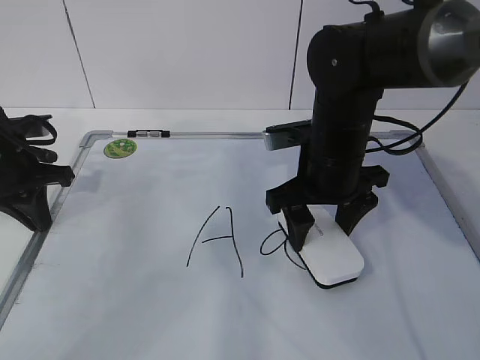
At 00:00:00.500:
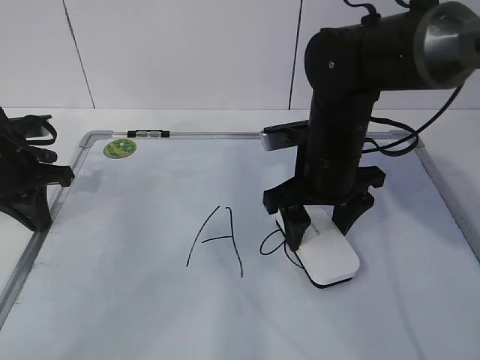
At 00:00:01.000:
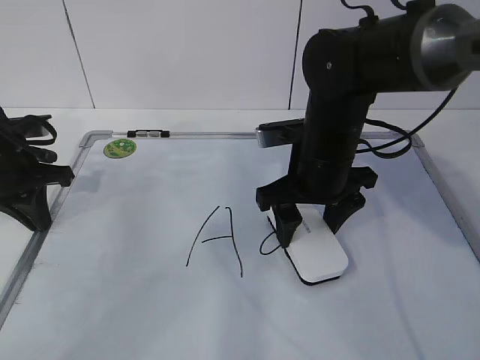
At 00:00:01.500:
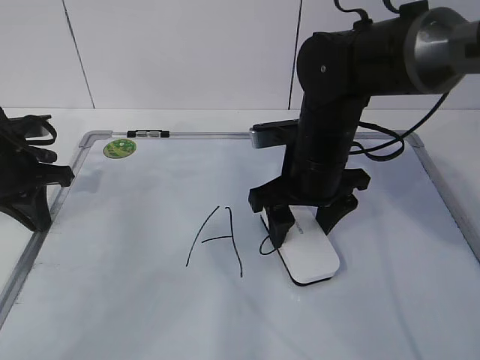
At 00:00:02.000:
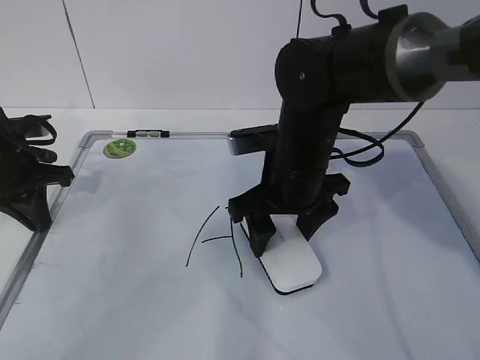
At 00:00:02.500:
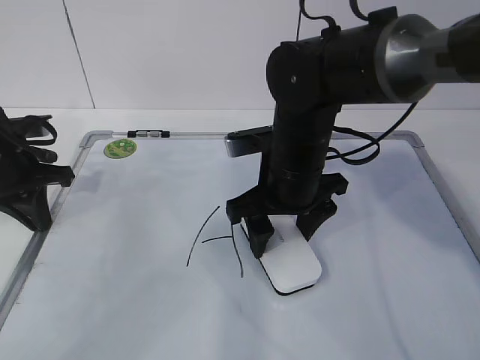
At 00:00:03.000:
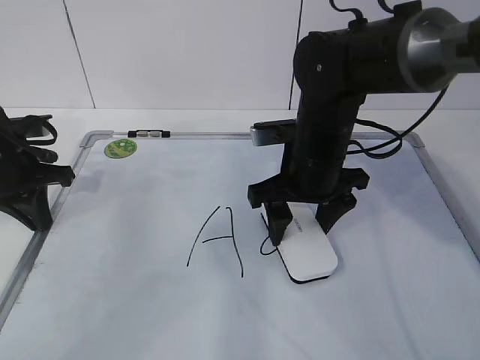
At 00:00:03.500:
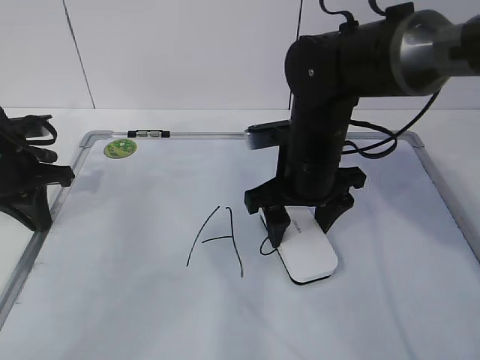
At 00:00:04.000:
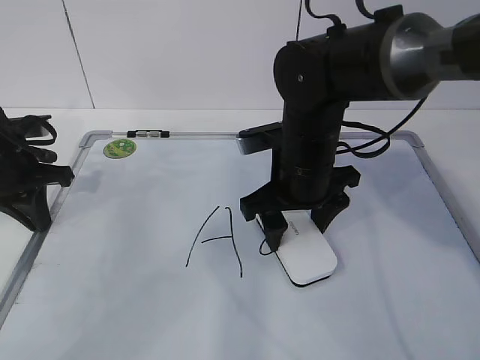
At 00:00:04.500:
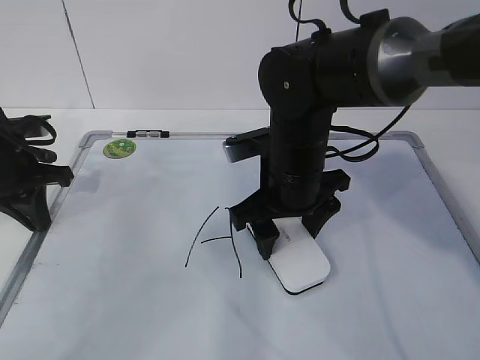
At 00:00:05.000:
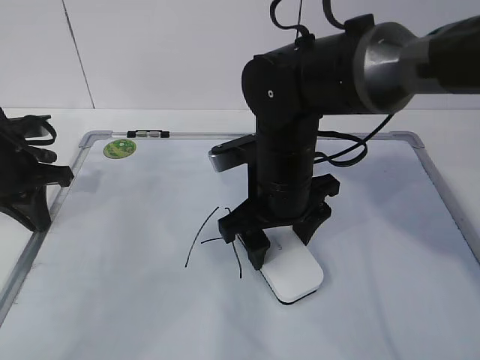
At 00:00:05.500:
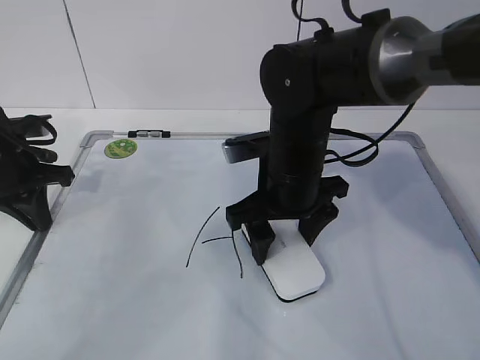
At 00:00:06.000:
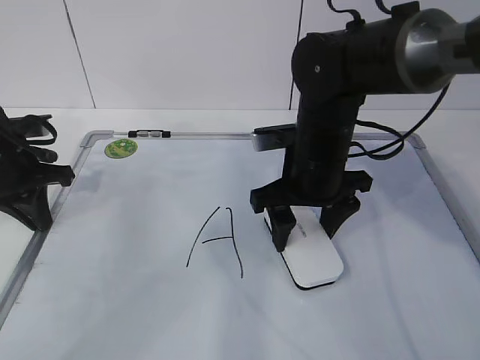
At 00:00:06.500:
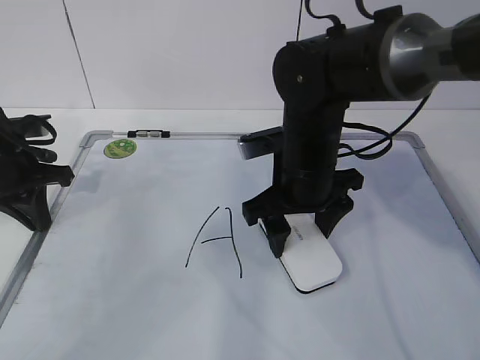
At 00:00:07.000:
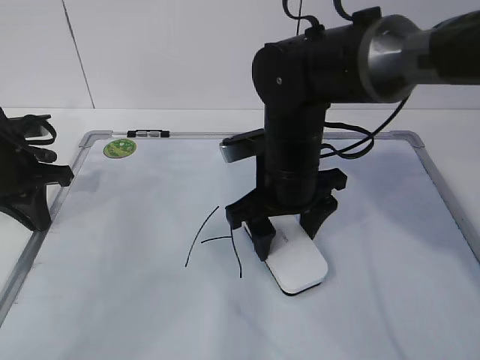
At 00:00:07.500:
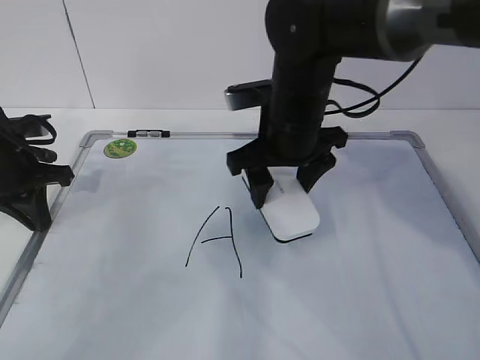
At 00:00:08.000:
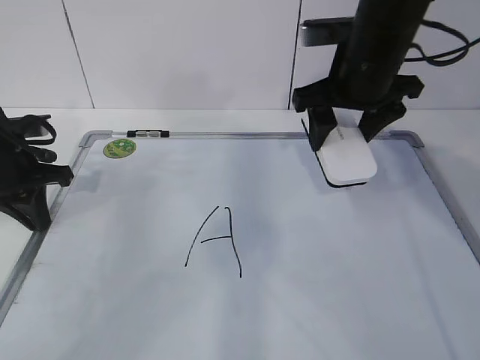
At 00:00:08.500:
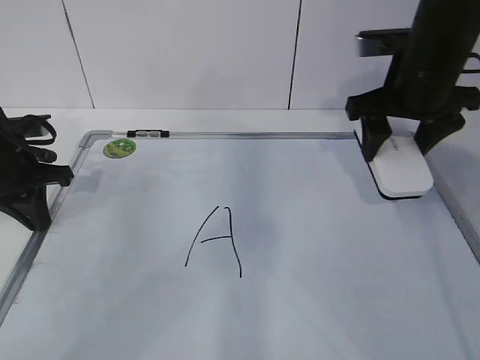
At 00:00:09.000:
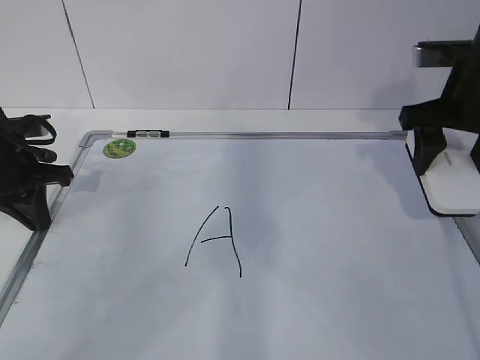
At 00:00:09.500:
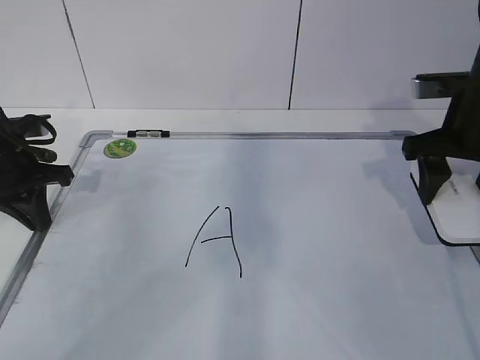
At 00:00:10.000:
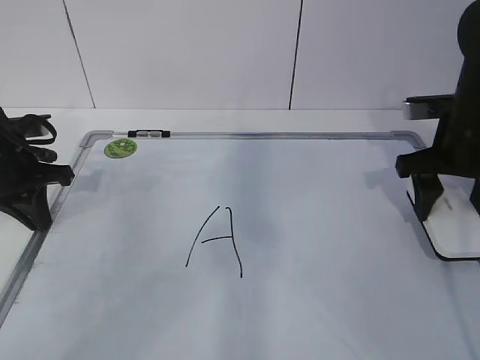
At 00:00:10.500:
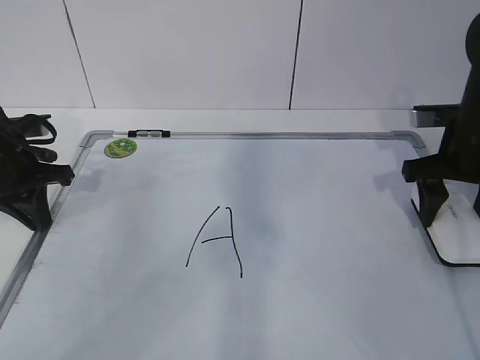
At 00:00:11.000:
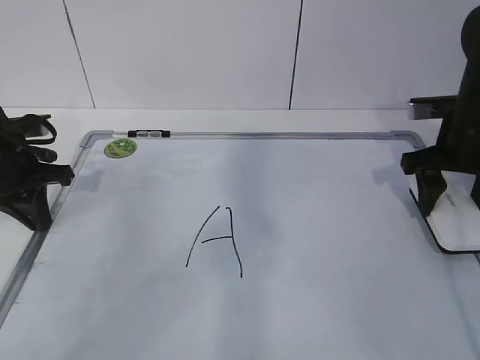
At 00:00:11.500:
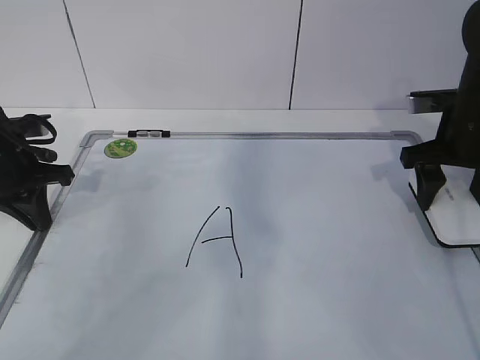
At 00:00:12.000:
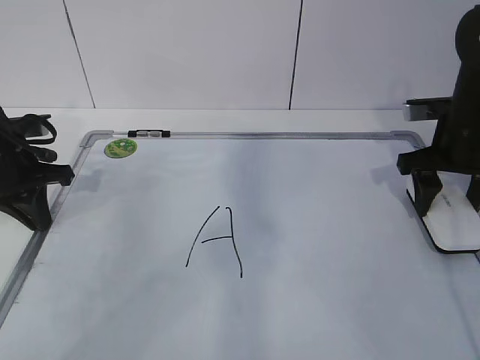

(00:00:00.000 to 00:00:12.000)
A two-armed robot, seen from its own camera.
Task of the whole recording: pick up the eraser on the blackboard and erase the letter "a".
Step, 00:00:02.000 - 00:00:08.000: Put down the eraser with your right hand.
00:00:00.000 - 00:00:04.000: The grippers move only a little.
00:00:04.000 - 00:00:06.000: The grippers move only a little.
00:00:06.000 - 00:00:08.000: The right gripper goes roughly 10 cm upward.
00:00:08.000 - 00:00:10.000: The right gripper travels to the right and downward by about 15 cm.
00:00:10.000 - 00:00:12.000: There are only small adjustments of the grippers.

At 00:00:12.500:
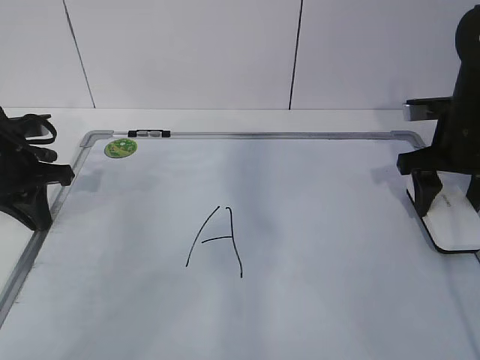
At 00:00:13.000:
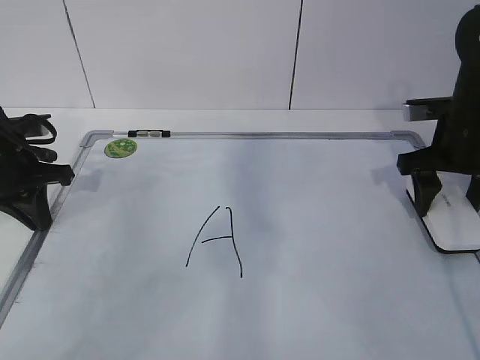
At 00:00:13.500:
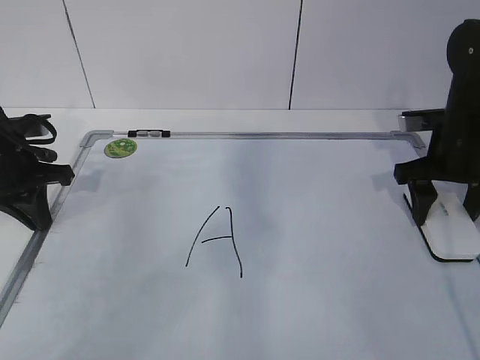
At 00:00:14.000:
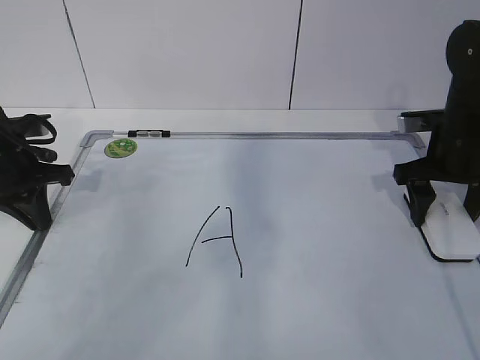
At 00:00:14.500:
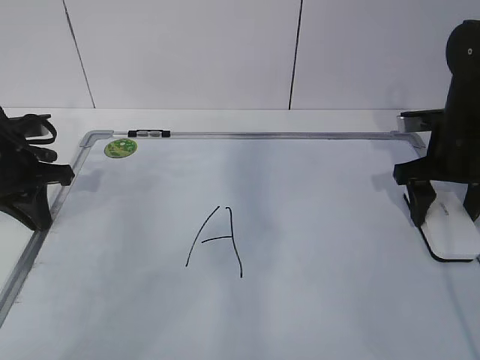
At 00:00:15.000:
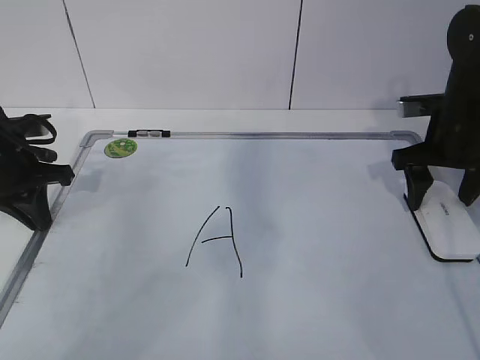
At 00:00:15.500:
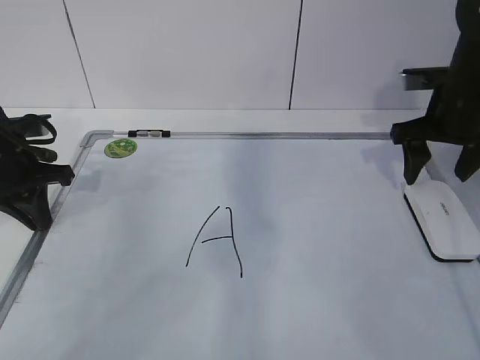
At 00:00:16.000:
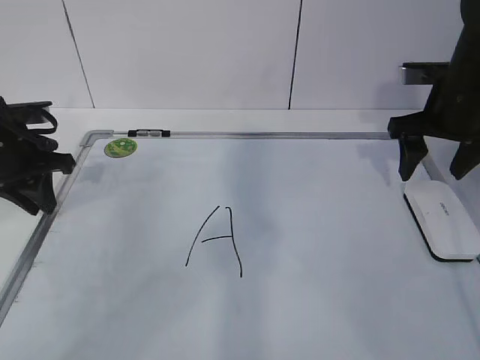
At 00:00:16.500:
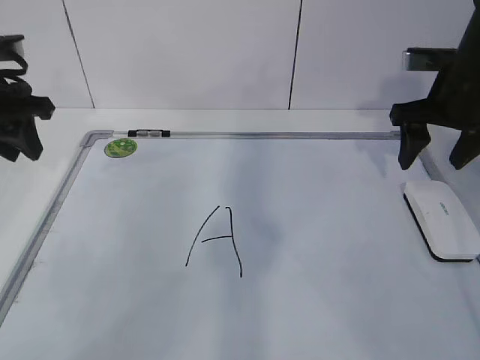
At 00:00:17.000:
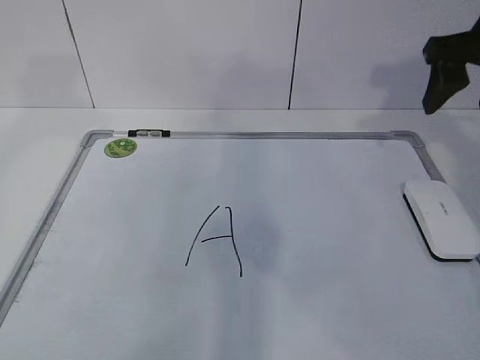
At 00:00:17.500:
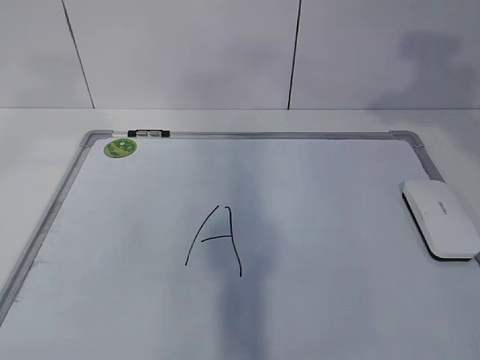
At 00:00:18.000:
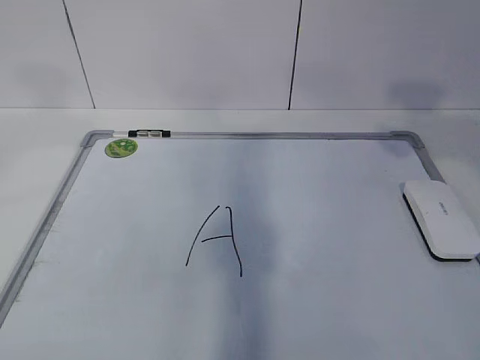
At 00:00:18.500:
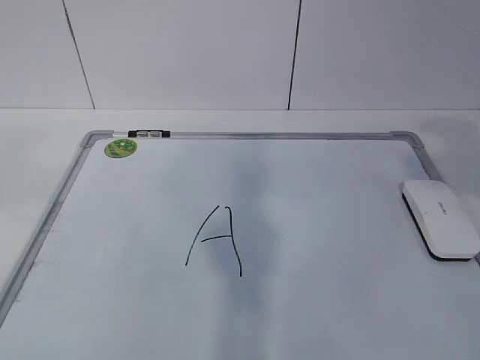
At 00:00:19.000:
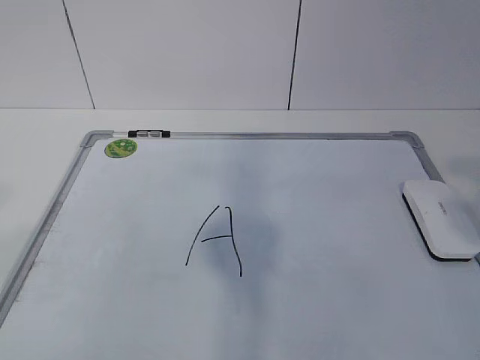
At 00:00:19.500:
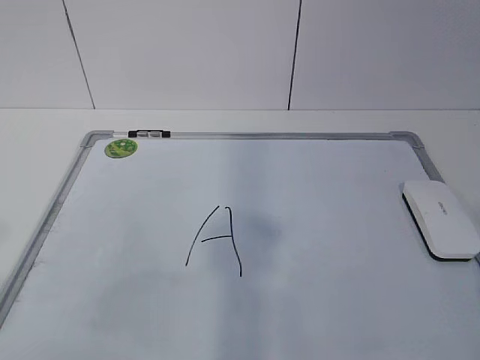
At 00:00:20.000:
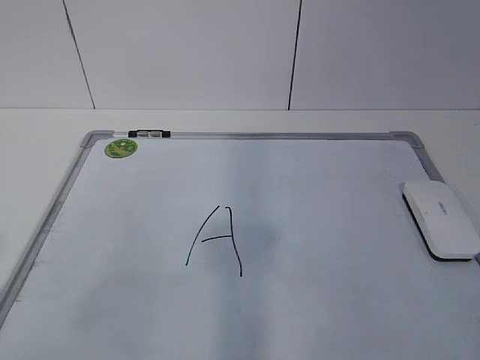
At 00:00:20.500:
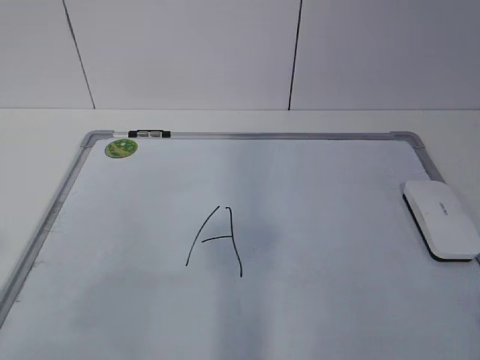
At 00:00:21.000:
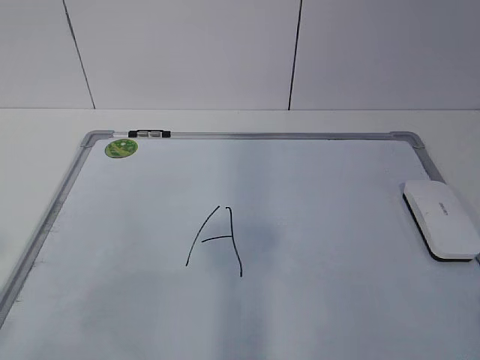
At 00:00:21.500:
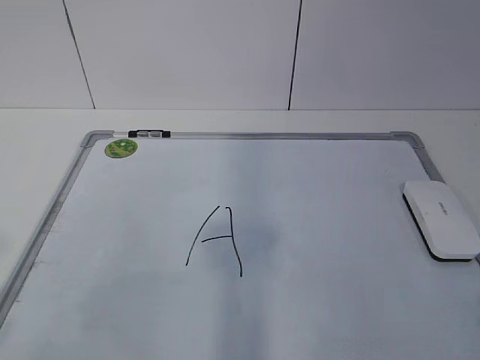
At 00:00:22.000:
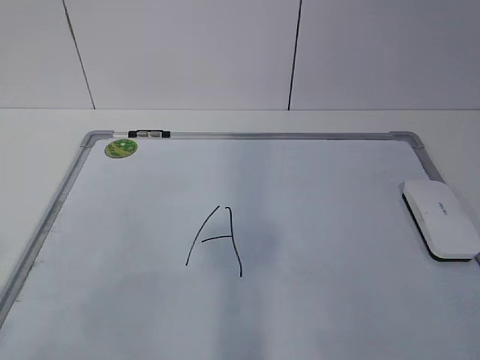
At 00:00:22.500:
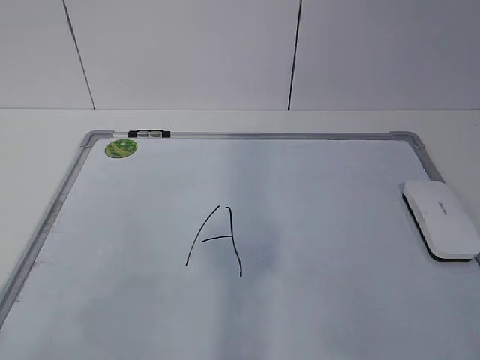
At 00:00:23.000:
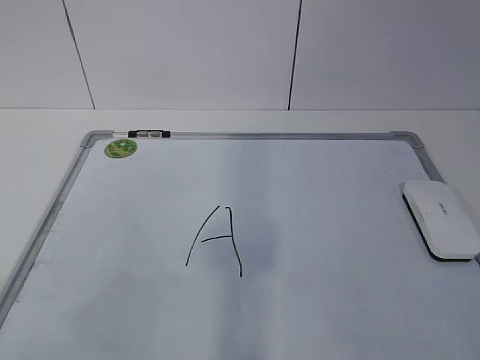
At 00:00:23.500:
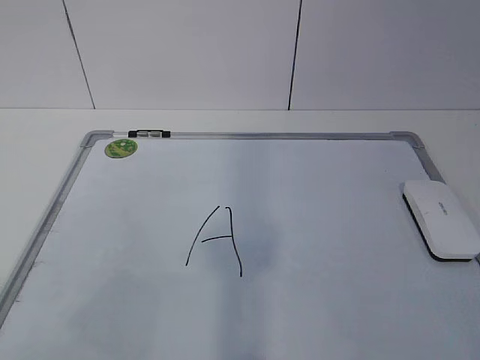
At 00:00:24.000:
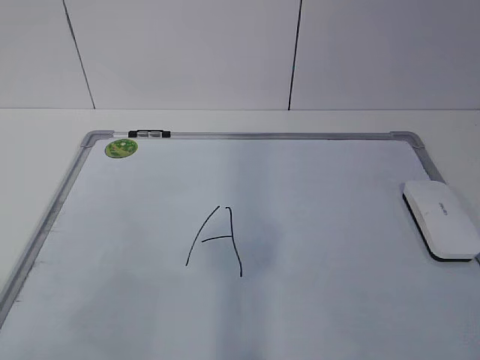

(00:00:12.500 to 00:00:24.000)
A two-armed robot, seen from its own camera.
Task of the whole recording: pick up the eraser on the blackboard and erase the letter "a".
00:00:12.500 - 00:00:14.500: The right gripper opens its fingers.
00:00:14.500 - 00:00:16.500: The grippers both shift upward by about 5 cm. The left gripper opens up.
00:00:16.500 - 00:00:18.500: The grippers both shift backward and upward by roughly 35 cm. The left gripper opens its fingers.
00:00:18.500 - 00:00:20.000: The left gripper travels downward by approximately 15 cm.
